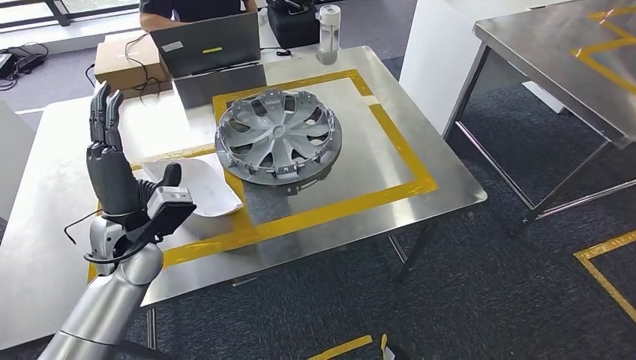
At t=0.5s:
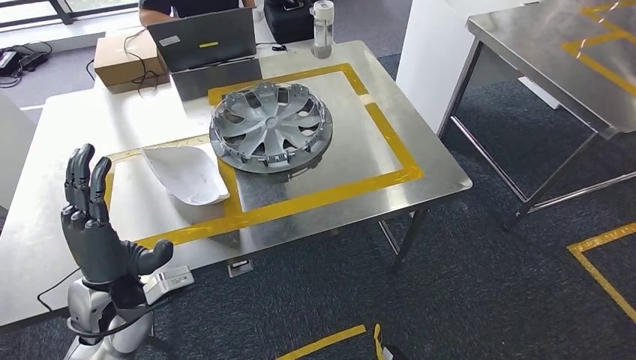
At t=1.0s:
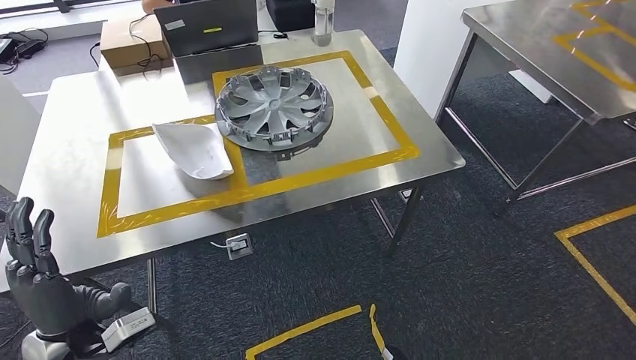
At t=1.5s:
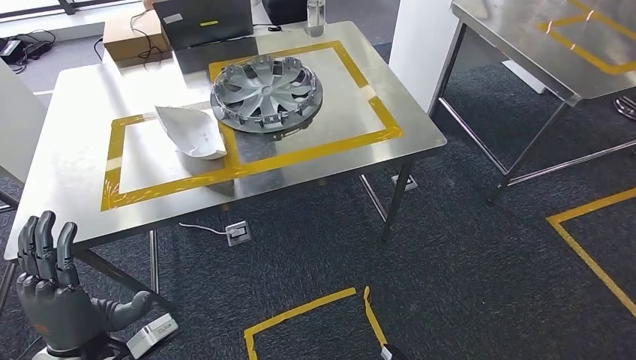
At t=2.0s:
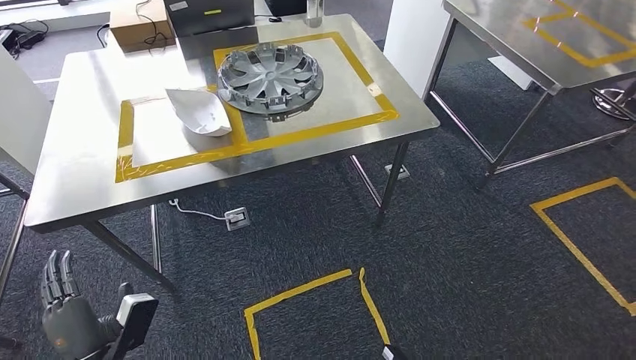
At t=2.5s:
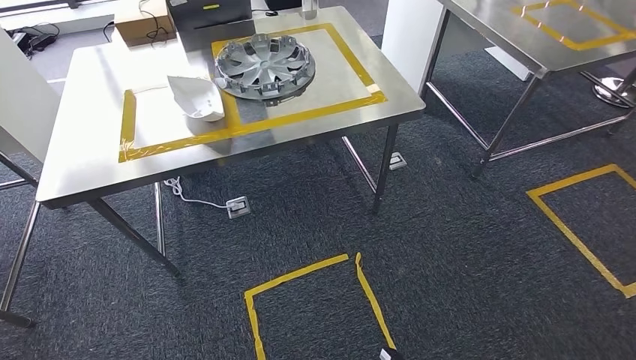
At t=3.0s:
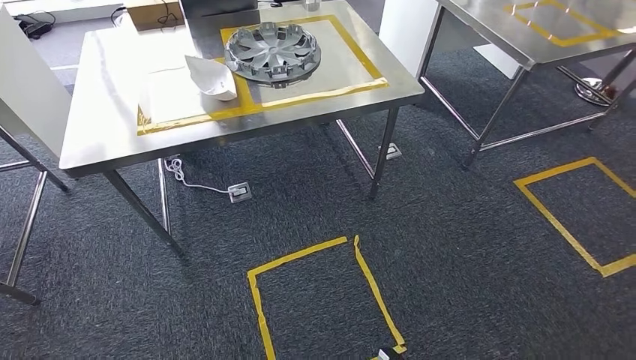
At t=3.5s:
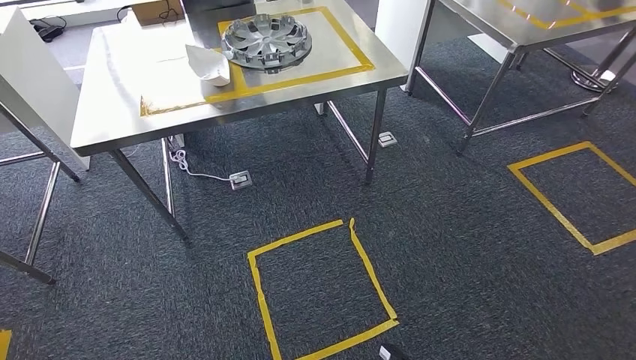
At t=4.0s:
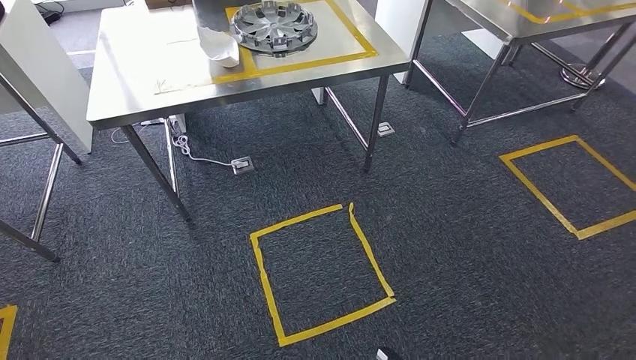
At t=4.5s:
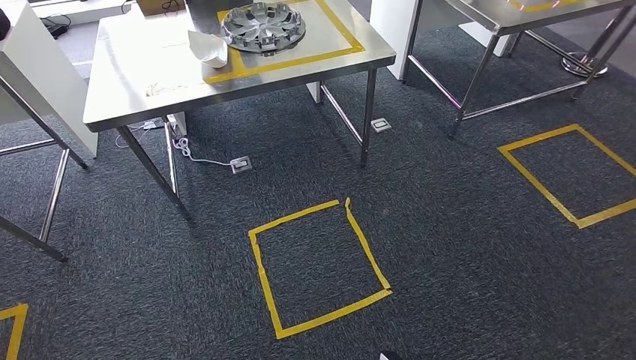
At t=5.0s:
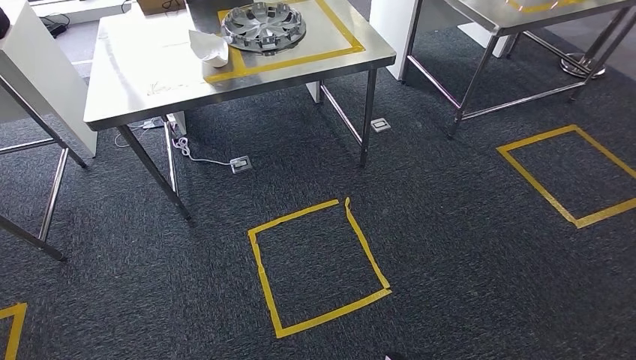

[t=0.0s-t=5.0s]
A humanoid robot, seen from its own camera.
Step, t=1.0s to t=5.0s: Return to the initial position at the workbench.
